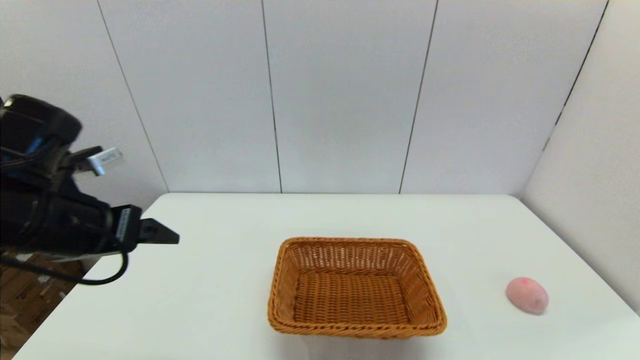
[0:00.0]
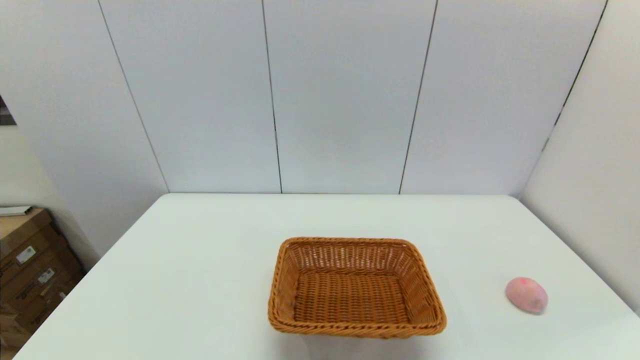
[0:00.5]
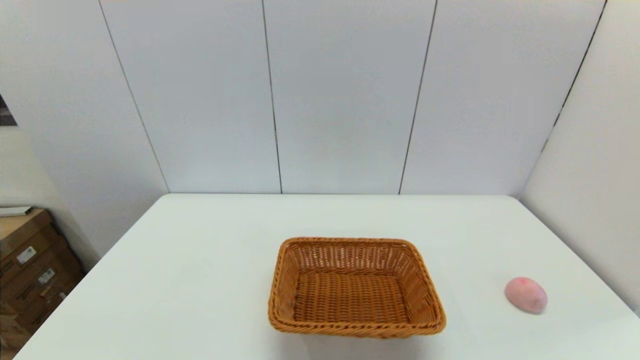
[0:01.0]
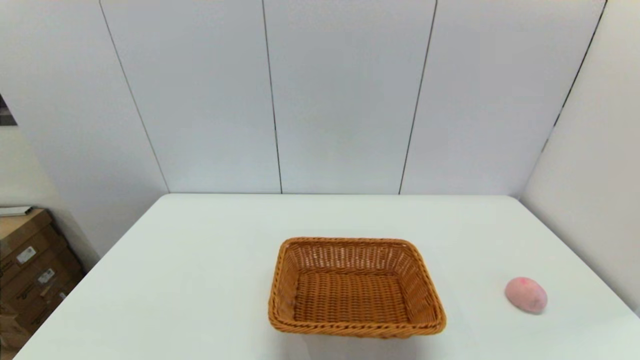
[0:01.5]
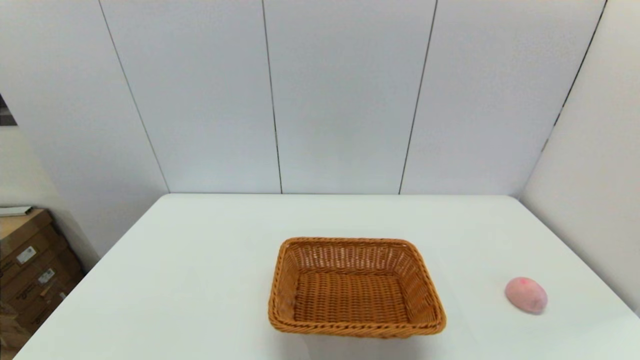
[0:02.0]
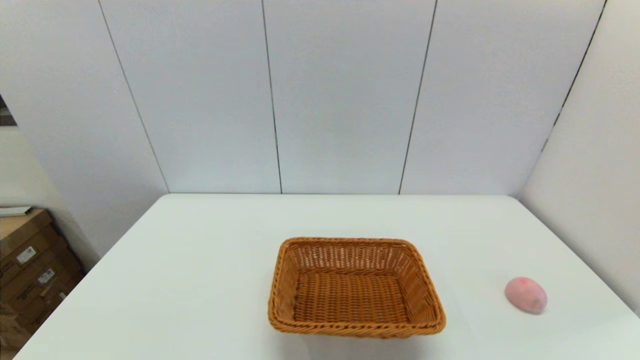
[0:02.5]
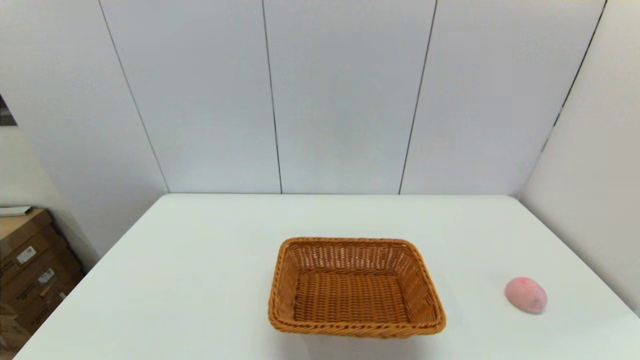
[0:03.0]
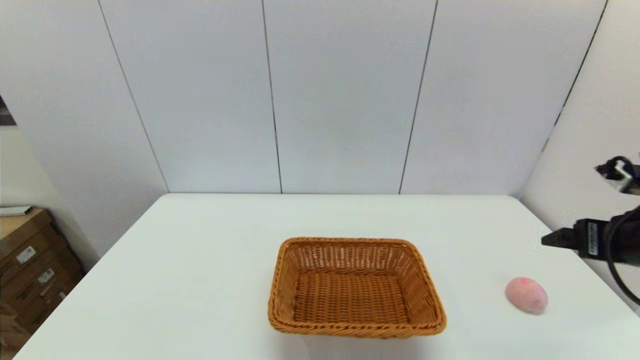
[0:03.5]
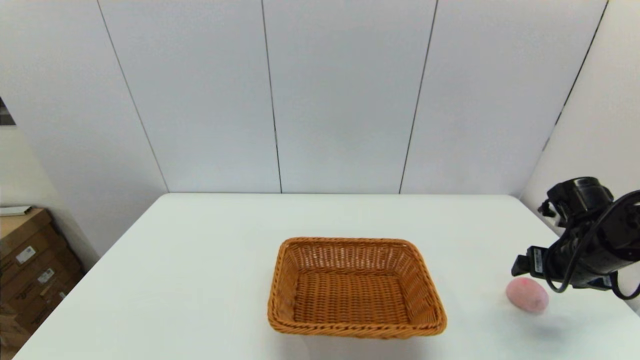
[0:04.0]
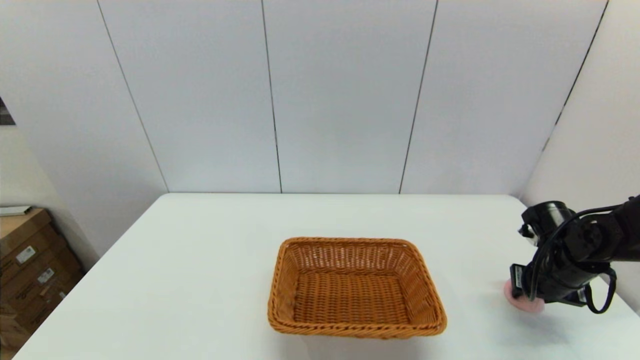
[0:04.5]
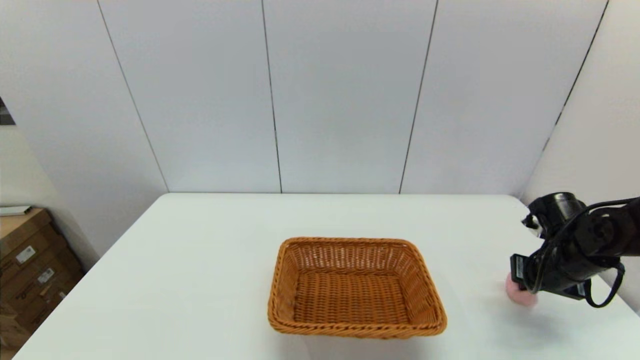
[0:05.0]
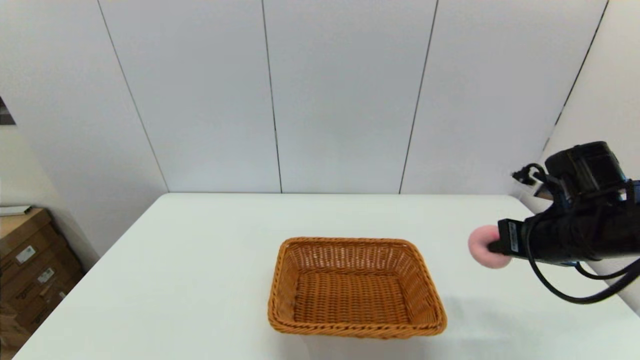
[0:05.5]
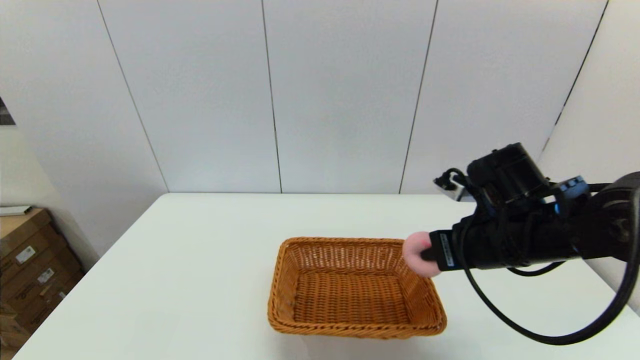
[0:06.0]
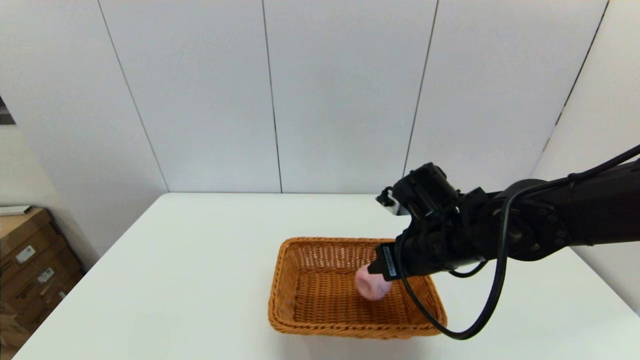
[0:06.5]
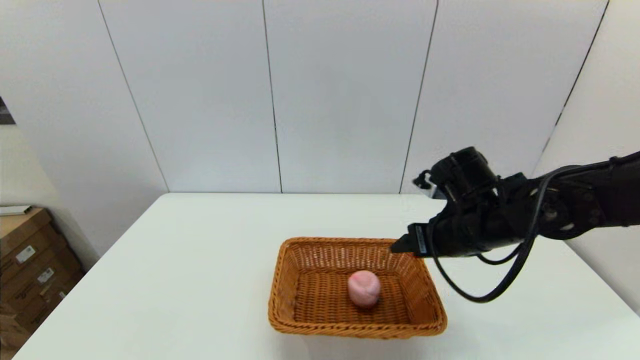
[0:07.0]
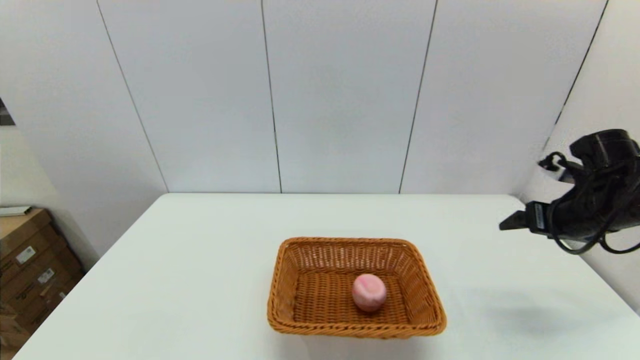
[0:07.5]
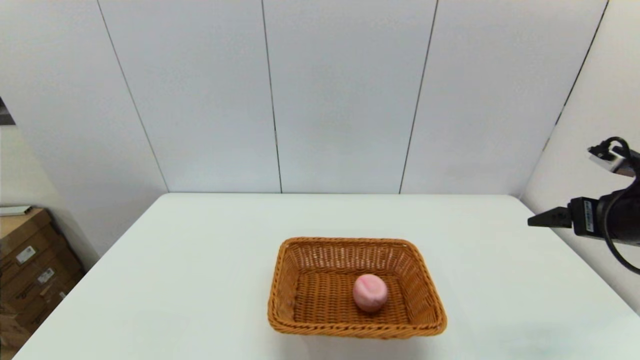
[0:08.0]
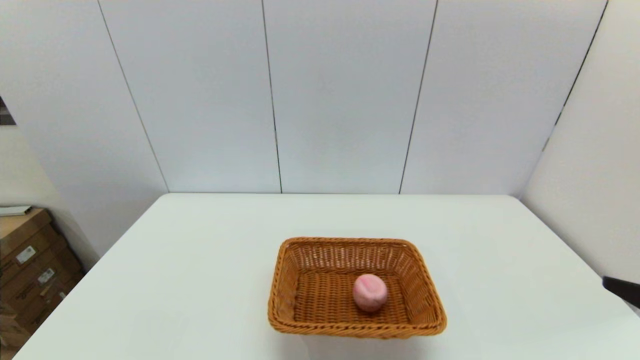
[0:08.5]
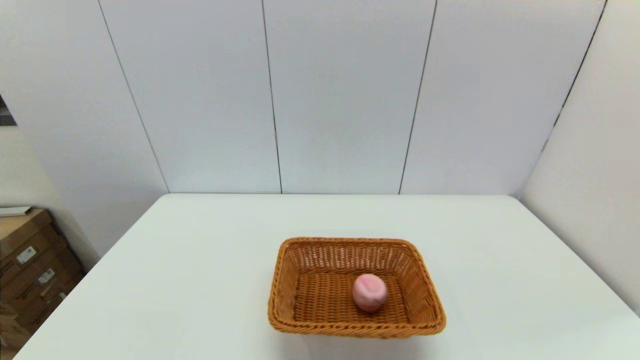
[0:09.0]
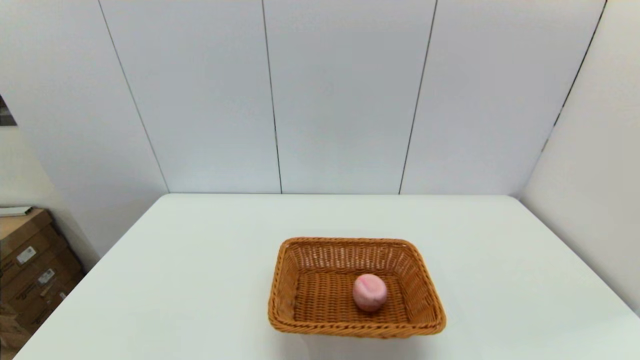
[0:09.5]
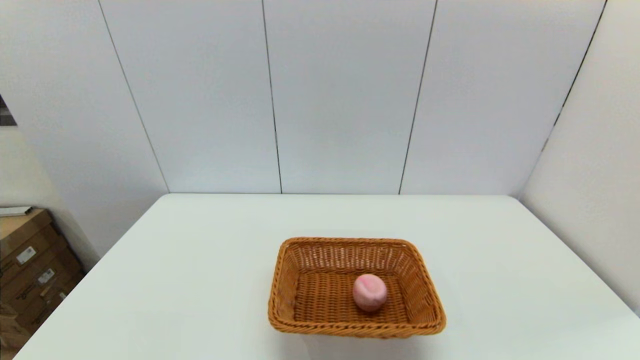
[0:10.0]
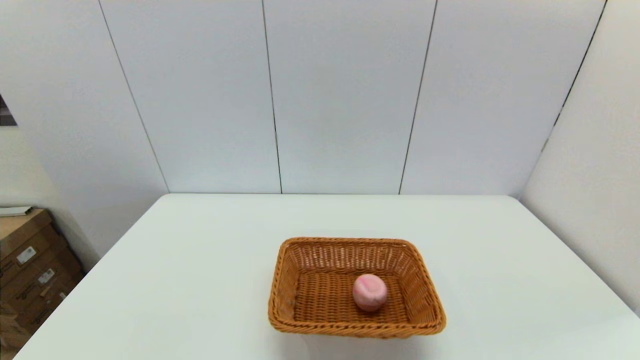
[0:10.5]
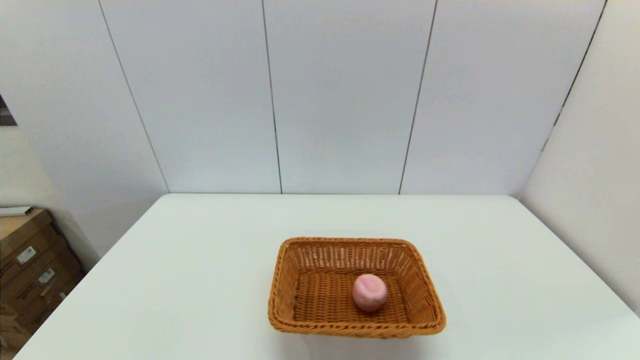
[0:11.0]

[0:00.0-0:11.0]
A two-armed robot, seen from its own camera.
Step, 0:00.5 to 0:04.5: Grasp the peach with the right gripper.
0:00.0 to 0:02.0: The left gripper goes about 25 cm backward and downward.
0:02.0 to 0:03.5: The right gripper travels forward by roughly 25 cm.
0:03.5 to 0:05.5: The right gripper goes some 5 cm to the left, moves about 15 cm downward and comes back, and closes up.
0:05.5 to 0:07.5: The right gripper moves to the right, some 10 cm, and opens.
0:07.5 to 0:09.0: The right gripper moves backward, about 30 cm.

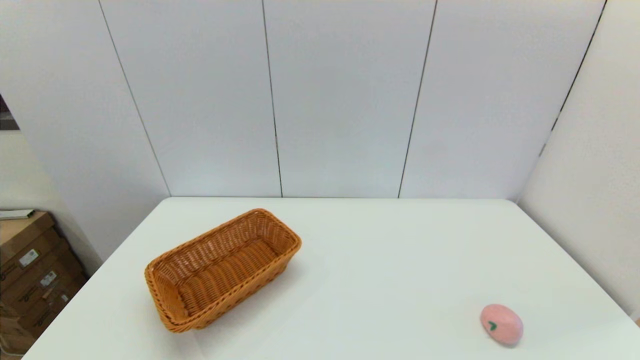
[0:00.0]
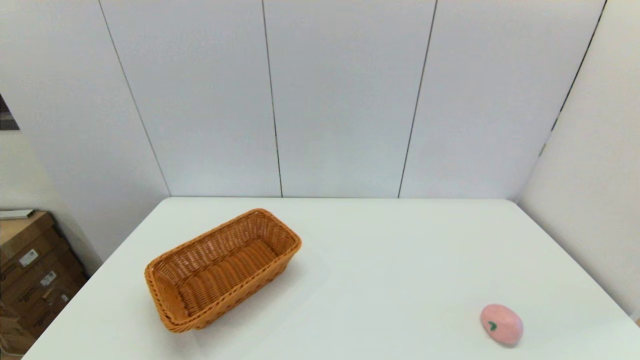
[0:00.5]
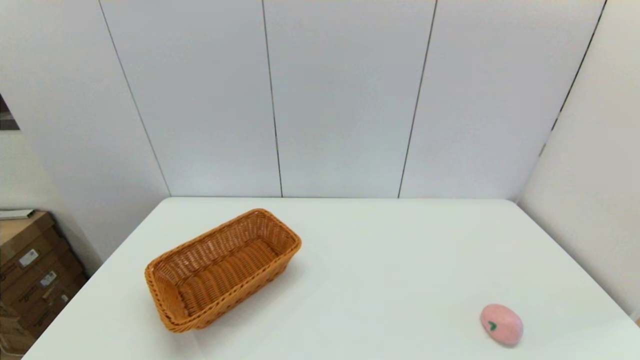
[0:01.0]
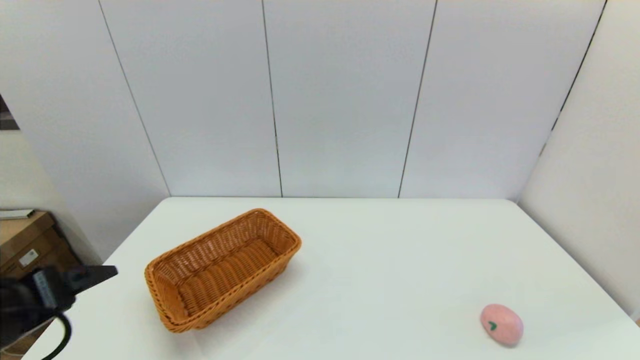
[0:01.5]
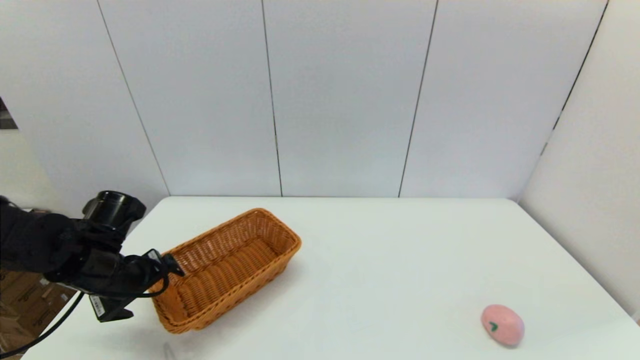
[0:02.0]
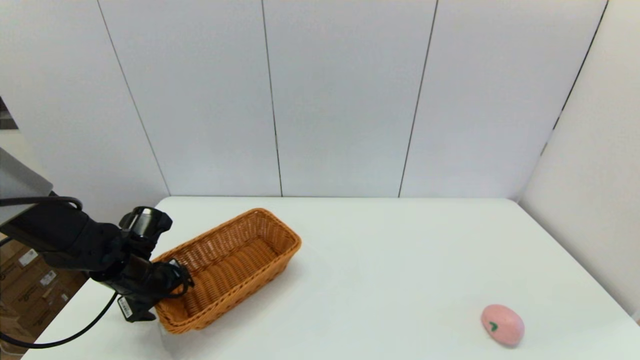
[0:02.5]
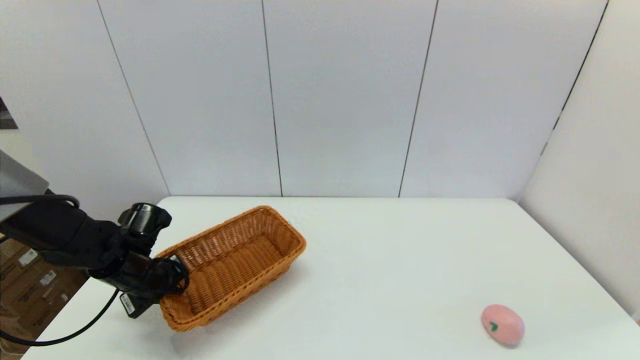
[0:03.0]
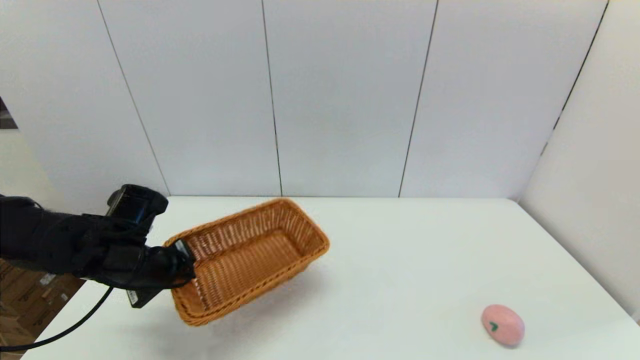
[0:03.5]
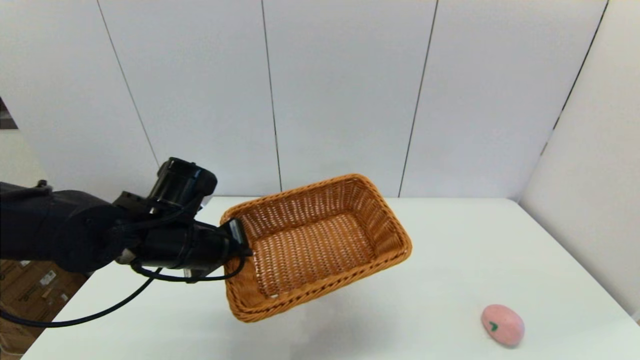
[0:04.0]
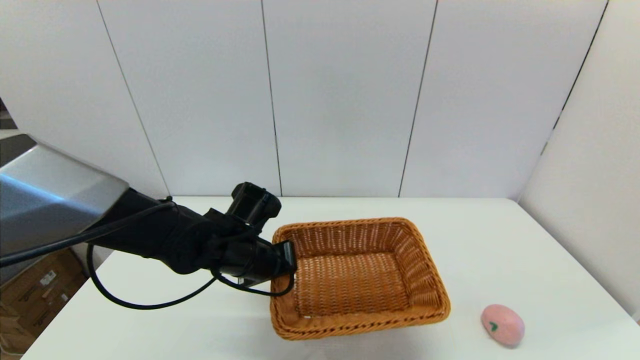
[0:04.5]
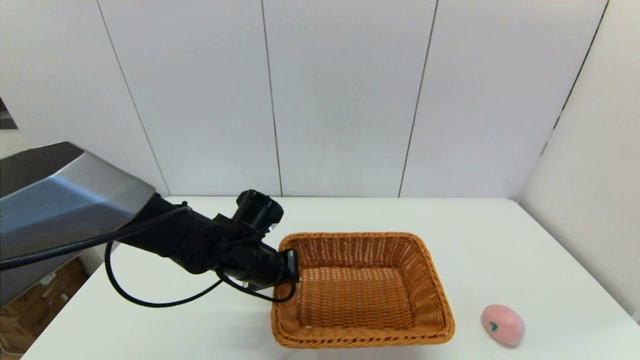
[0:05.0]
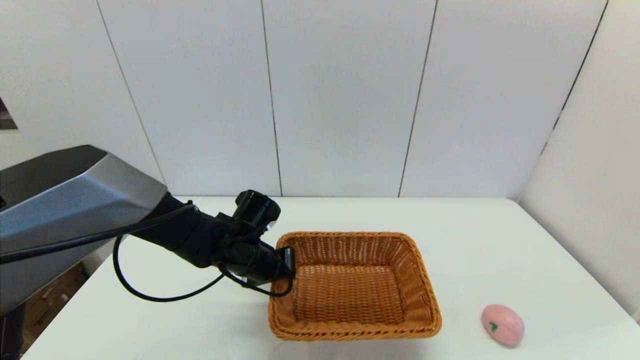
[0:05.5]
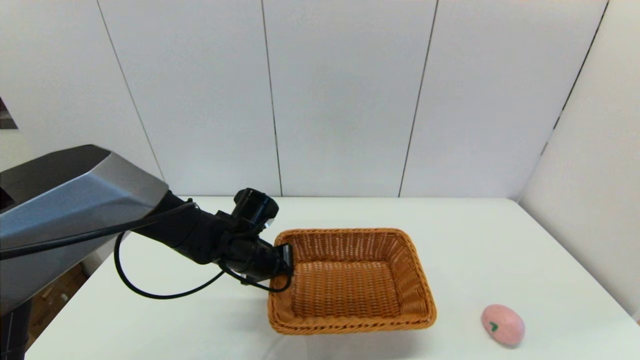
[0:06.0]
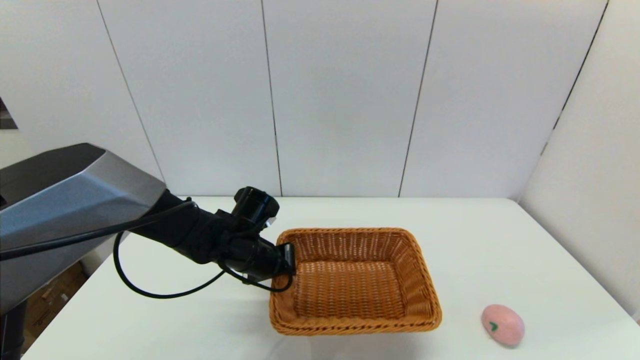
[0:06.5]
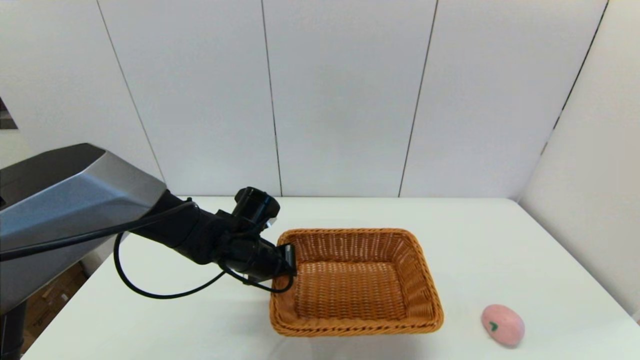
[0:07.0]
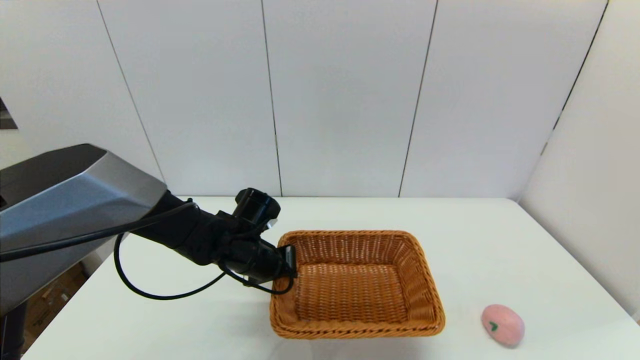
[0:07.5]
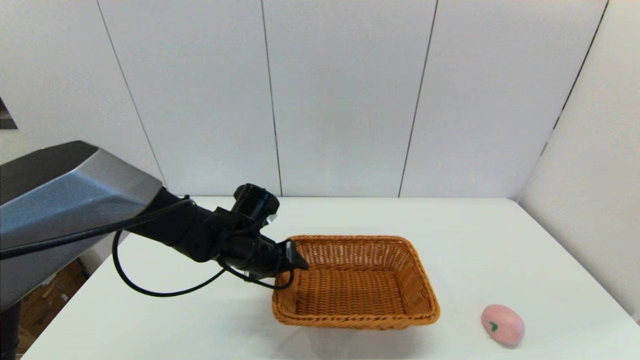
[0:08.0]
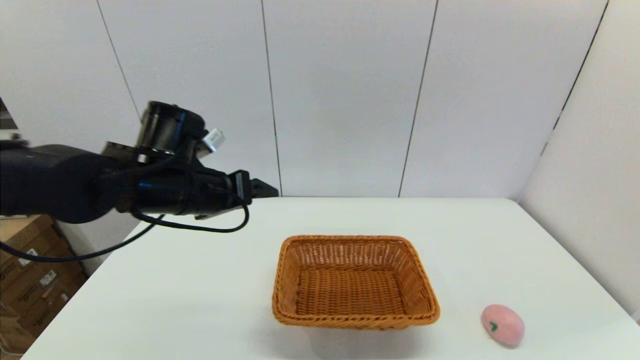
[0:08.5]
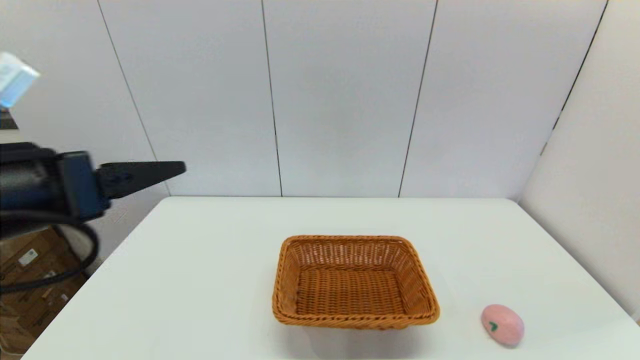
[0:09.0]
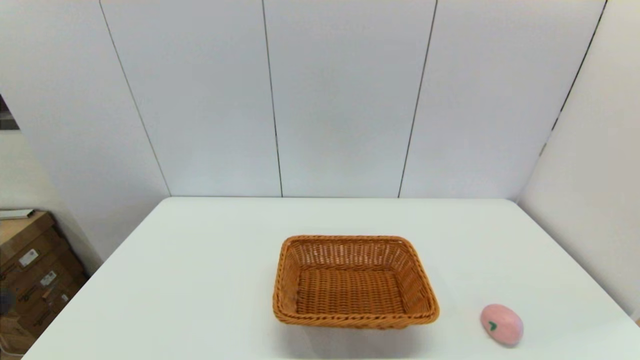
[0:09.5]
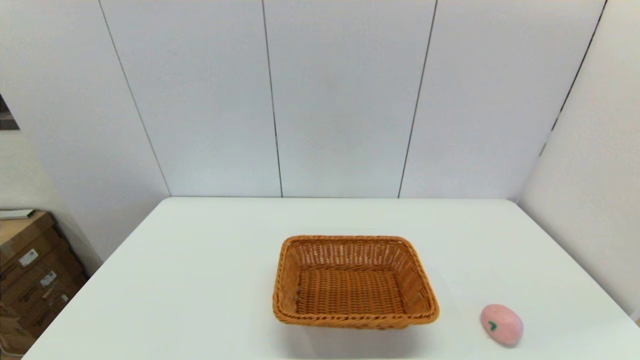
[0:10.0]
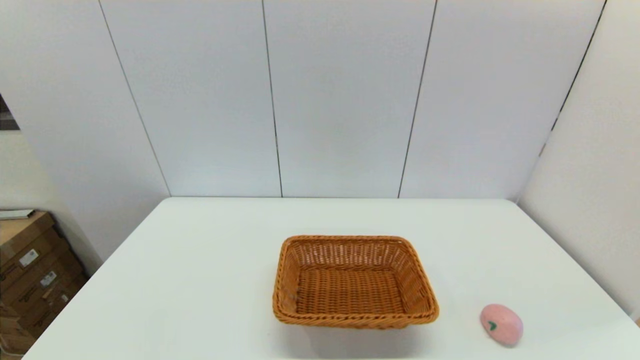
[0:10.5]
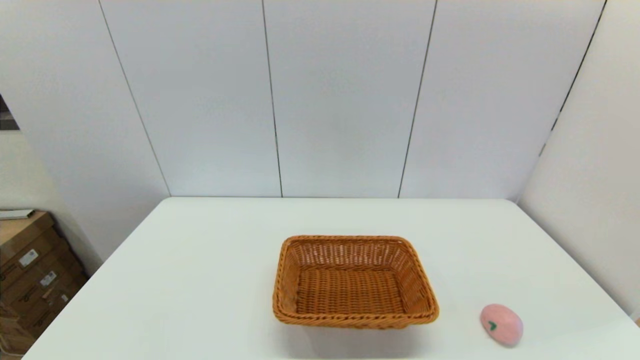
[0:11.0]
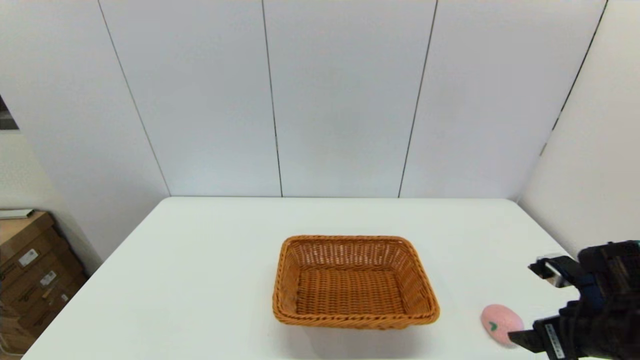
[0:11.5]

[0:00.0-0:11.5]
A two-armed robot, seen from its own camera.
Step, 0:00.0 to 0:03.0: Grasp the light basket with the left gripper.
Step, 0:03.5 to 0:07.5: Place the light basket on the middle of the table with the left gripper.
0:00.0 to 0:02.0: The left gripper moves forward, approximately 30 cm.
0:02.0 to 0:04.0: The left gripper moves to the right and upward, some 15 cm, and closes.
0:04.0 to 0:06.0: The left gripper is displaced downward, forward and to the right by about 10 cm.
0:06.0 to 0:07.5: Both grippers stay put.
0:07.5 to 0:09.5: The left gripper travels backward, to the left and upward by about 40 cm, and opens.
0:09.5 to 0:11.5: The right gripper shifts approximately 20 cm forward.
